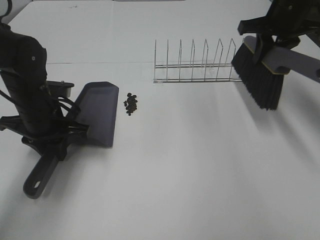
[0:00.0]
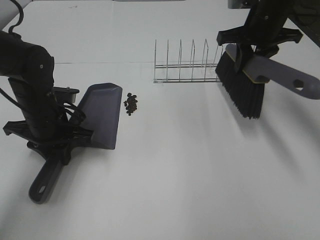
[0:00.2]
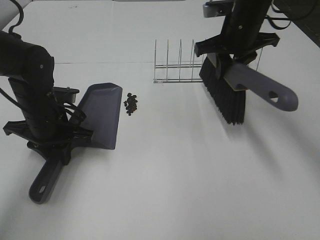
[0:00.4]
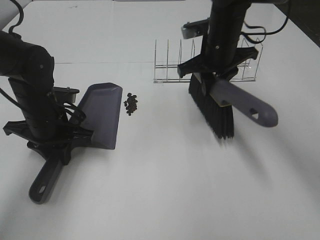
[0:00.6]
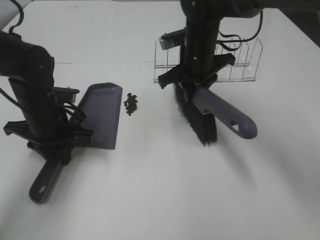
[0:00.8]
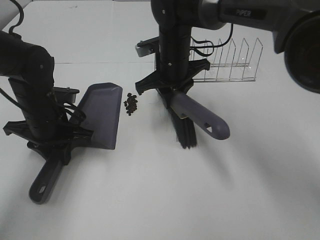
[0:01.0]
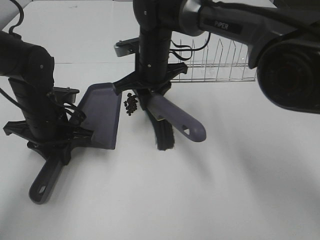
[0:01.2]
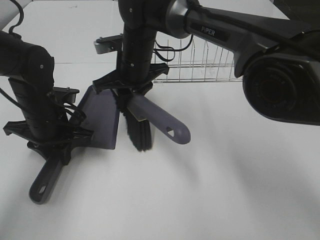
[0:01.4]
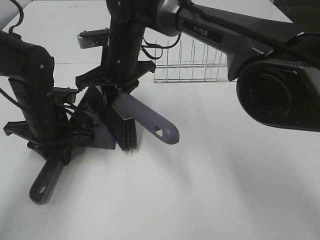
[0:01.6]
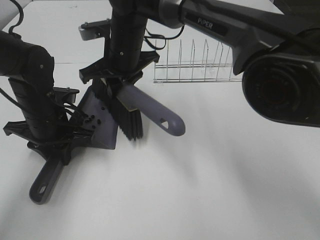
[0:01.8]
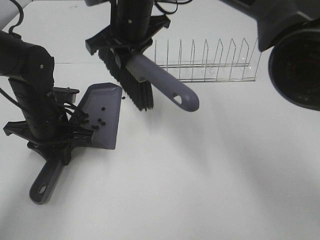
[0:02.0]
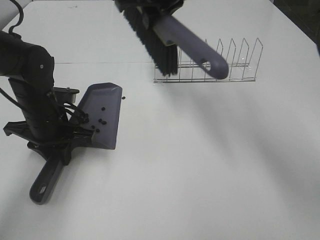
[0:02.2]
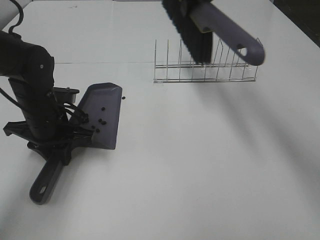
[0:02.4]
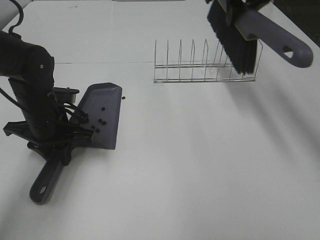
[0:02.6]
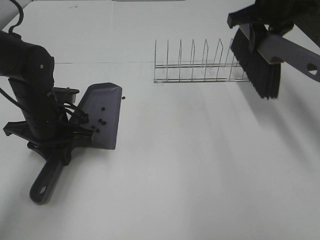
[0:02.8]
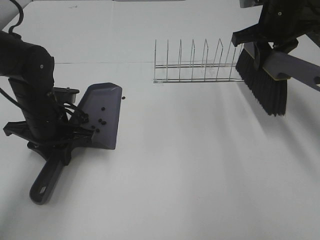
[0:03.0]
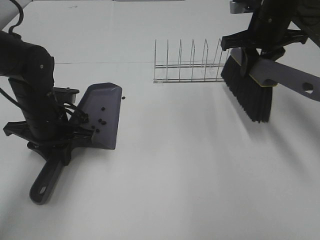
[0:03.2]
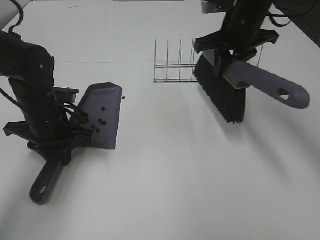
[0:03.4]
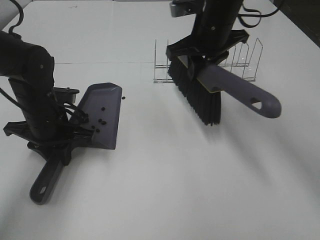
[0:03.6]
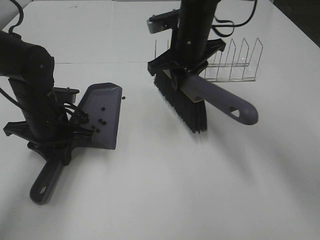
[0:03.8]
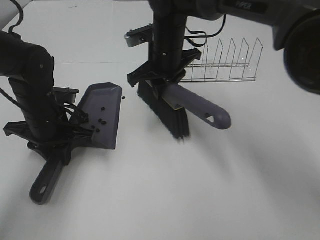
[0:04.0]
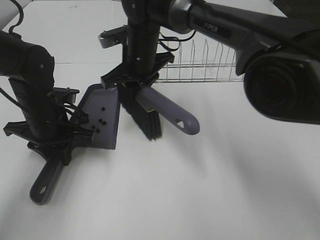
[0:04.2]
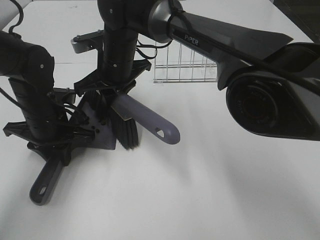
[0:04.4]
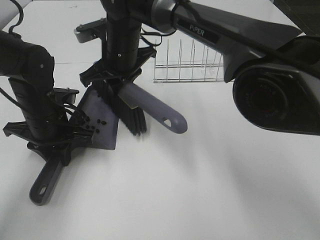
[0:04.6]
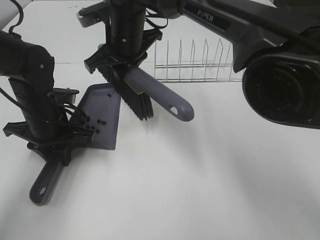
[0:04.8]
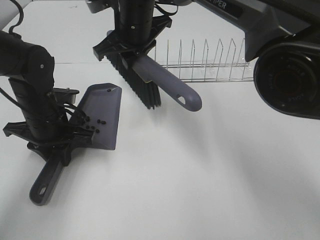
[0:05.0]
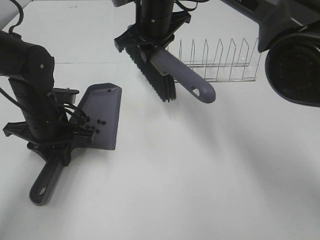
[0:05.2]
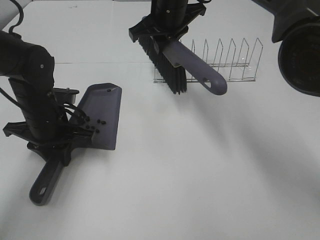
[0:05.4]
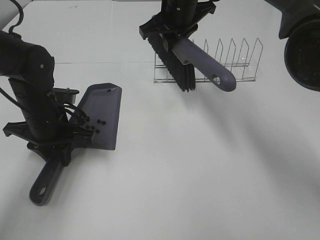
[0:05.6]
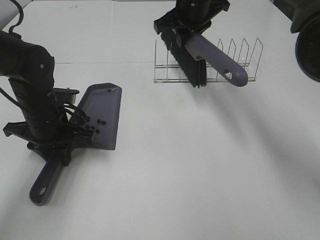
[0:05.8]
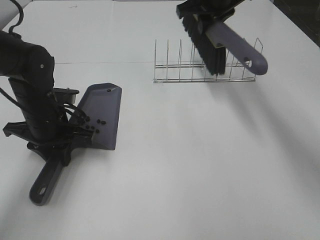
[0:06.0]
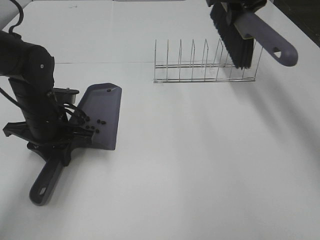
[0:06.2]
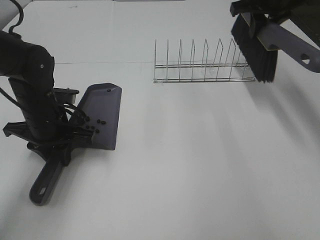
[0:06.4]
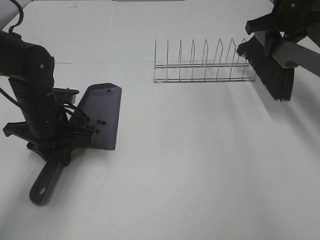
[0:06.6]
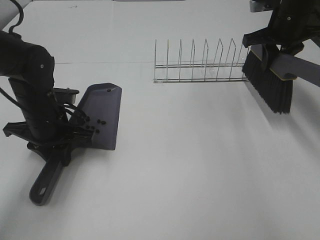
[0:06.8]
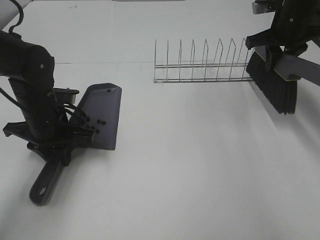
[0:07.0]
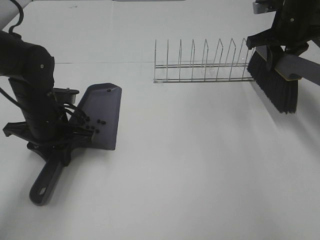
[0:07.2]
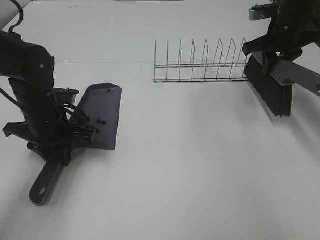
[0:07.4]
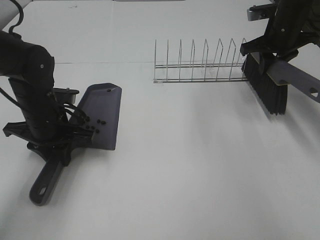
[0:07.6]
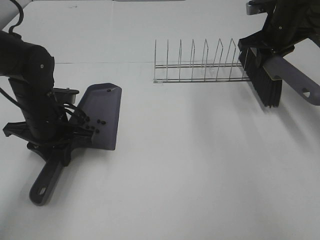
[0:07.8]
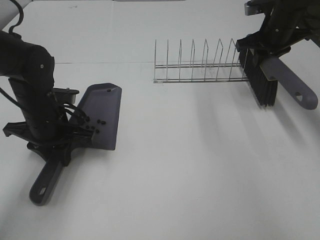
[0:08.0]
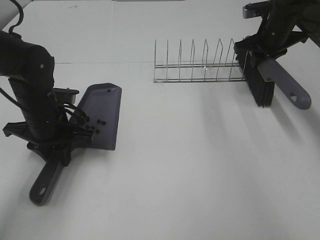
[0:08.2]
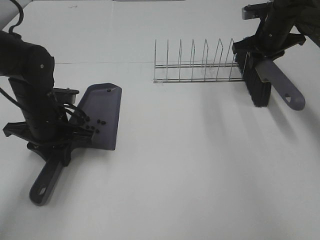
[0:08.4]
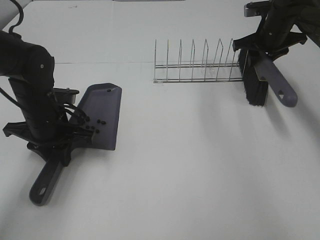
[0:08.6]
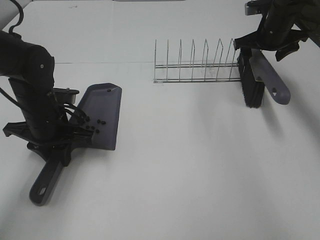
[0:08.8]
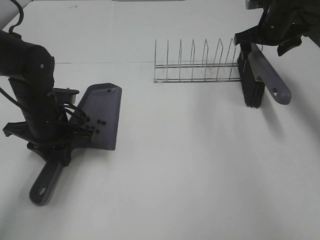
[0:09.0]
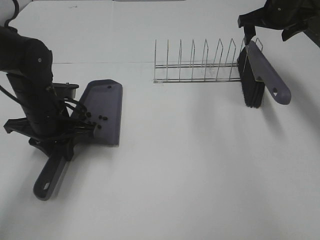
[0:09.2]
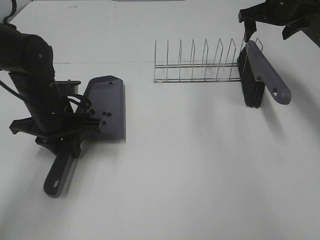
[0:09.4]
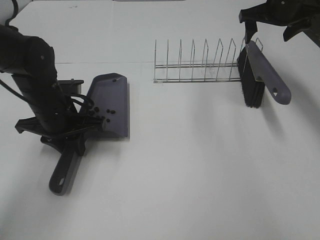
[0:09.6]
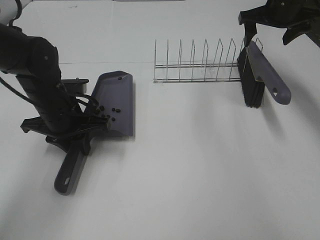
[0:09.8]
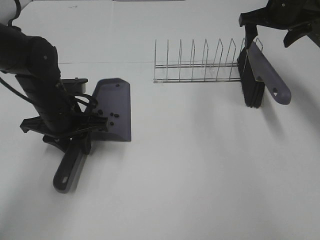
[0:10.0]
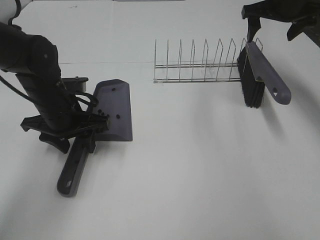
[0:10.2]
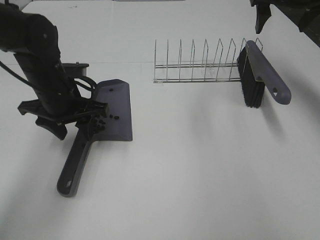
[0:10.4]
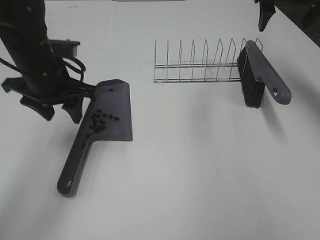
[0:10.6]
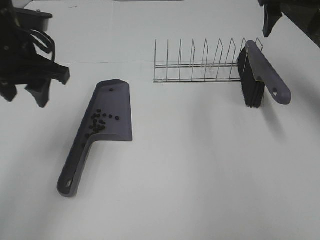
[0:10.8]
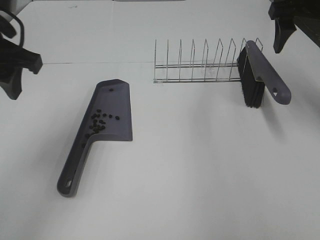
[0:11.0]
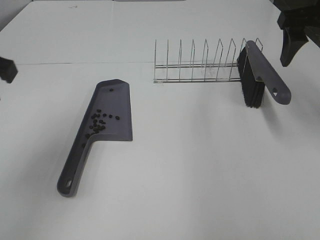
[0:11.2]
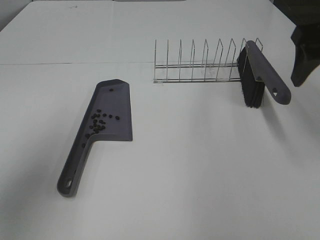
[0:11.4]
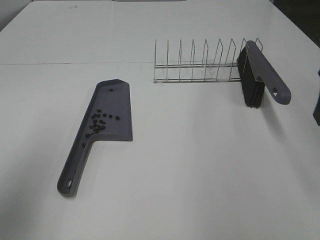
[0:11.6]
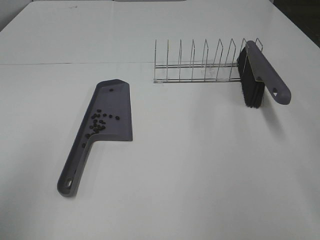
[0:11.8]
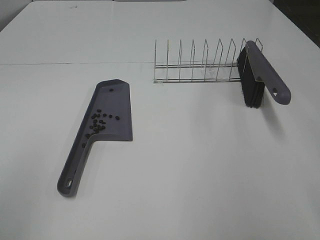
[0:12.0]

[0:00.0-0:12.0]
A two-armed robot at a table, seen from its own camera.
Task of the whole recording: Sweep Coffee Bean.
Step, 0:00.0 to 0:04.6: Right hand:sweep the coffee beans into the dustpan.
Step, 0:04.8 to 0:09.0: Right hand:place the broom on the rack.
Step, 0:09.2 to 0:10.4: Left hand:place the dustpan on the table.
0:00.0 to 0:01.6: The right gripper shifts approximately 30 cm to the left.
0:01.6 to 0:03.0: The right gripper moves to the right, about 30 cm.
0:03.0 to 0:04.4: The right gripper travels to the left by roughly 30 cm.
0:04.4 to 0:06.0: The right gripper heads to the right and upward, covering roughly 25 cm.
0:06.0 to 0:07.6: The right gripper is displaced to the right and downward by about 15 cm.
0:07.6 to 0:09.0: The right gripper opens.
0:09.0 to 0:10.4: The right gripper goes about 10 cm upward, while the left gripper is displaced upward by approximately 5 cm, and opens its fingers.
0:10.4 to 0:12.0: The right gripper travels backward by roughly 35 cm. The left gripper moves backward, to the left and upward, some 35 cm.
